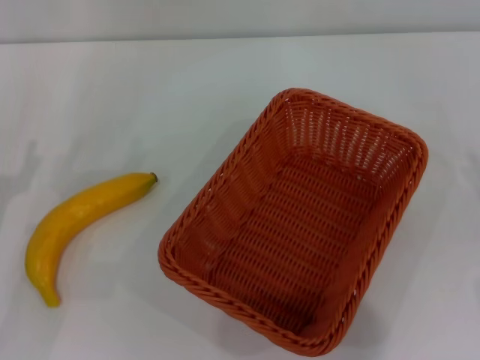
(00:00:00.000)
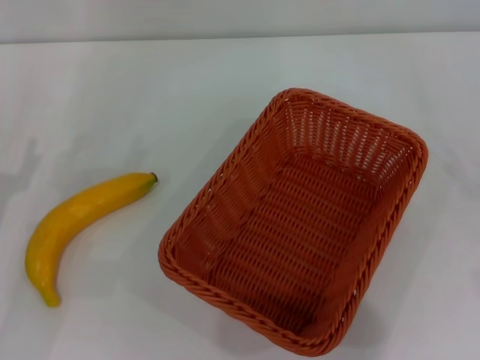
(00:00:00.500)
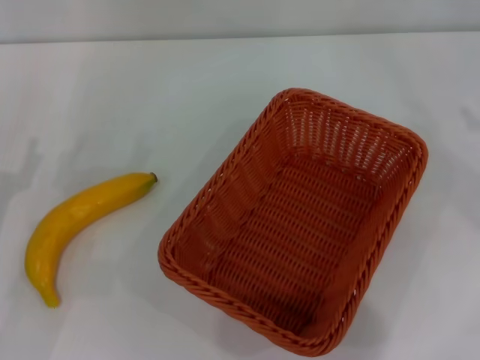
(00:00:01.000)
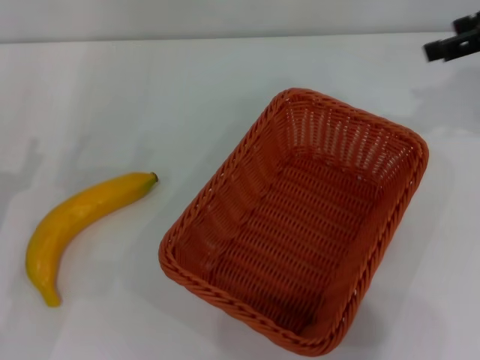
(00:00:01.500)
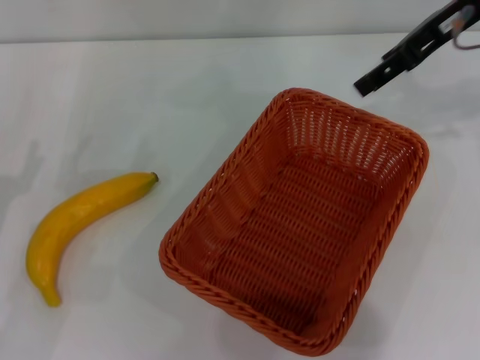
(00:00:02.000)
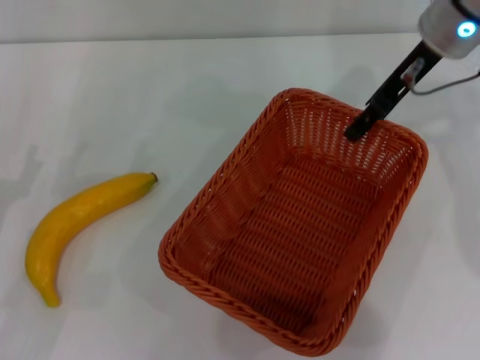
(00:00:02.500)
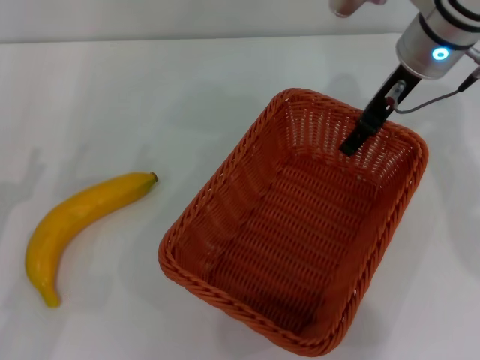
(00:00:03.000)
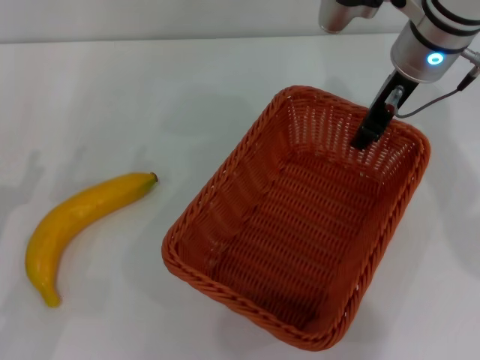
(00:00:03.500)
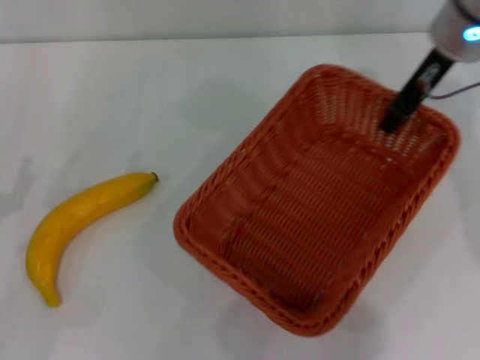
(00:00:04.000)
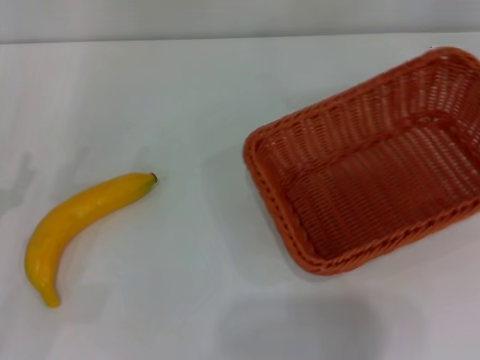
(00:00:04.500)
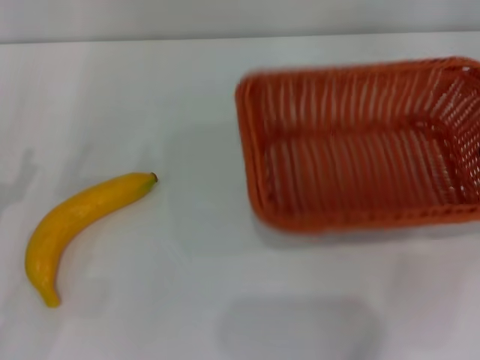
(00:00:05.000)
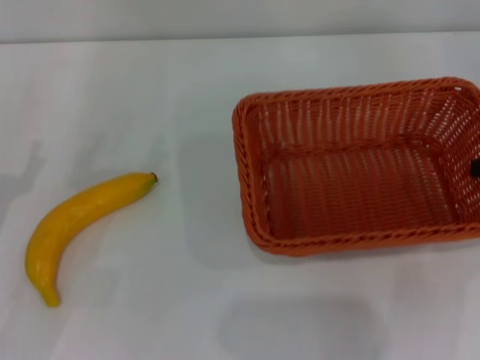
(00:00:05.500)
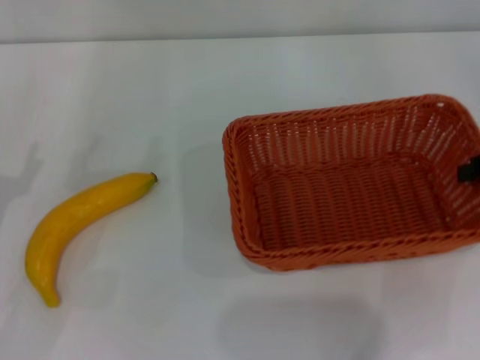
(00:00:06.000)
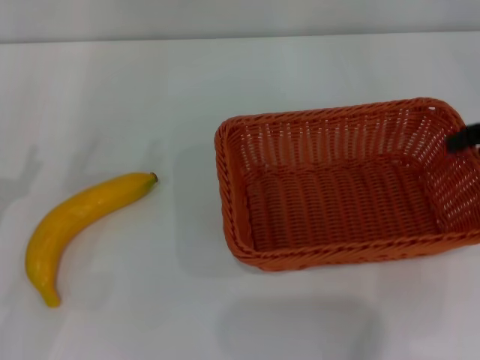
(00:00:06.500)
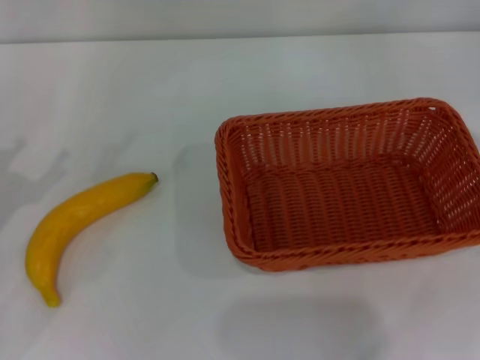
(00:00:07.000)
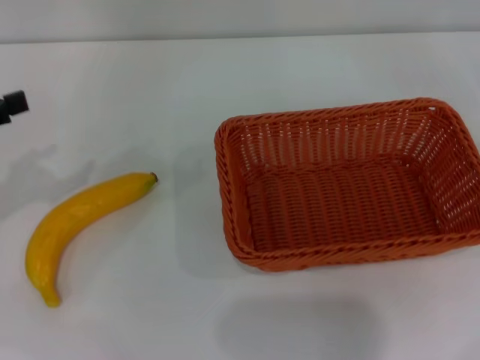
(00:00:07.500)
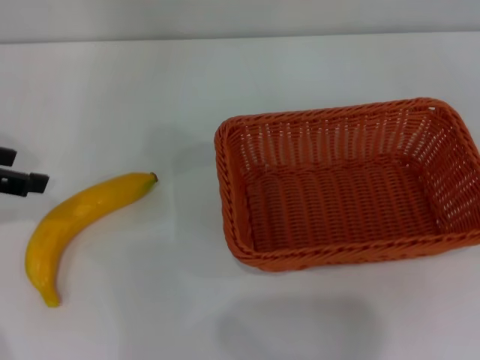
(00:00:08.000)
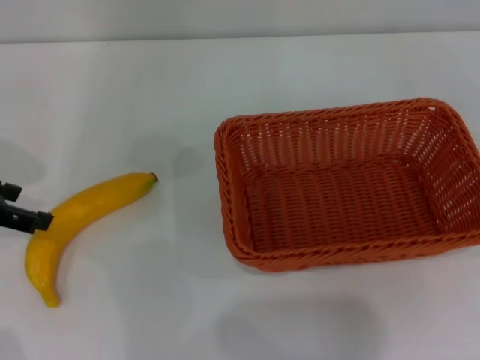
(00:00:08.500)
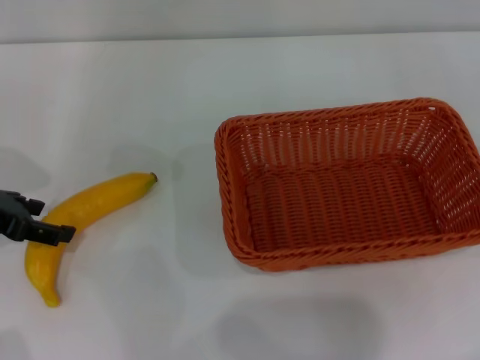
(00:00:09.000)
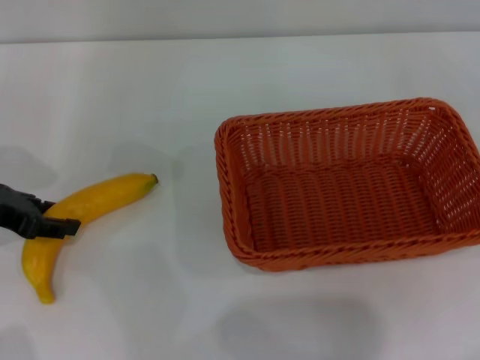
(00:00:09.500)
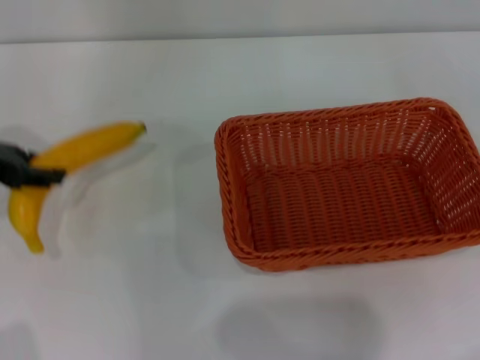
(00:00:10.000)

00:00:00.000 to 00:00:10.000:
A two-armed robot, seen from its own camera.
Step, 00:00:00.000 to 00:00:03.500: Pick up the light basket with the right gripper.
Step, 00:00:04.000 to 00:00:06.000: Place the light basket in the center of view with the right gripper.
Step, 00:00:06.500 to 00:00:09.500: Pick up the banana with the left gripper.
00:00:00.000 to 00:00:02.000: The right gripper travels upward, forward and to the left by approximately 35 cm.
00:00:02.000 to 00:00:04.000: The right gripper closes its fingers.
00:00:04.000 to 00:00:06.000: The right gripper heads to the right and backward, covering approximately 20 cm.
00:00:06.000 to 00:00:08.000: The right gripper shifts approximately 15 cm to the right and backward, and opens its fingers; the left gripper goes some 15 cm upward and forward.
00:00:08.000 to 00:00:10.000: The left gripper closes up.

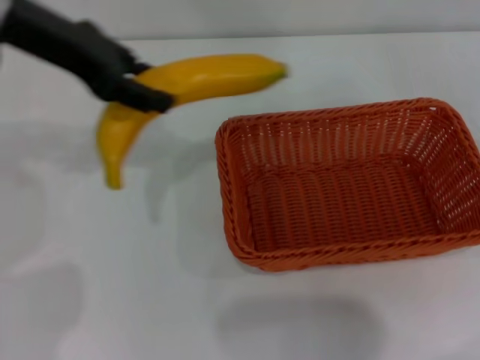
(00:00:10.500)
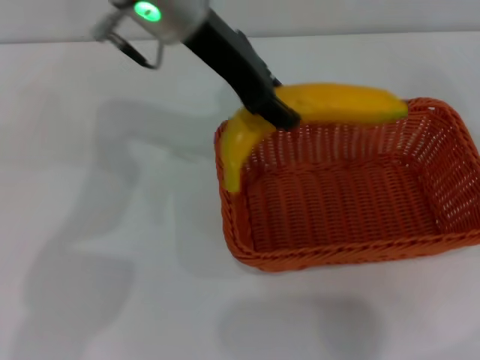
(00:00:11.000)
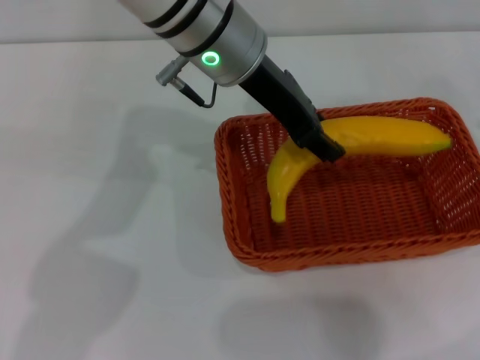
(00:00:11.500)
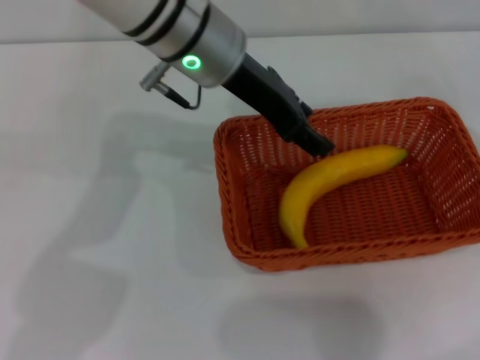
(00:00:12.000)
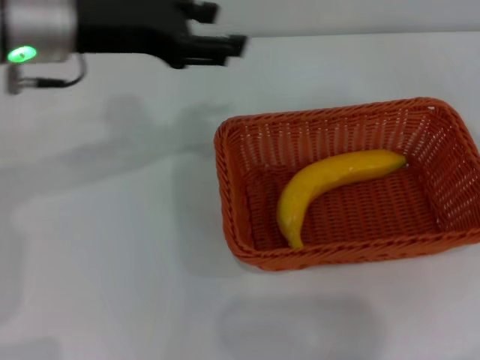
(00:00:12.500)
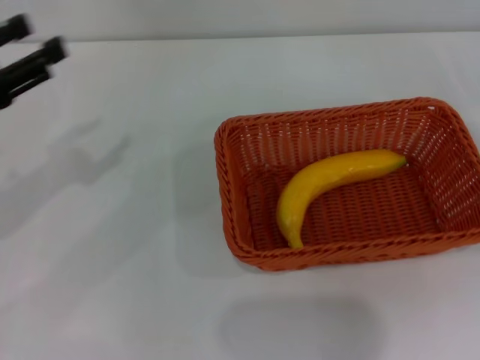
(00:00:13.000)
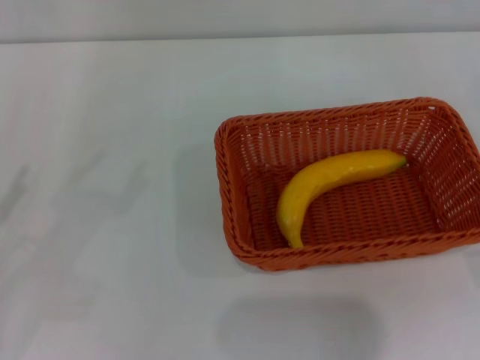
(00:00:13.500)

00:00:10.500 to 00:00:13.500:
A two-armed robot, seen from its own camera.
Step, 00:00:10.500 to 00:00:11.500: Place the banana into the light basket with the left gripper.
00:00:10.500 to 00:00:12.000: The left gripper goes some 15 cm to the right, and opens its fingers.
00:00:12.000 to 00:00:13.500: The right gripper shifts about 10 cm downward and backward, while the left gripper is displaced to the left, backward and downward by roughly 40 cm.
